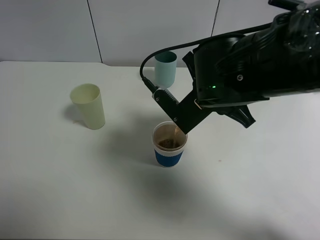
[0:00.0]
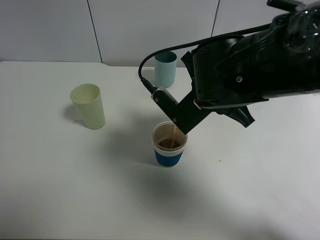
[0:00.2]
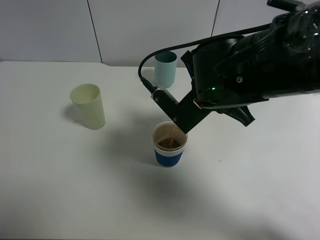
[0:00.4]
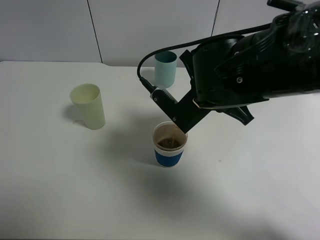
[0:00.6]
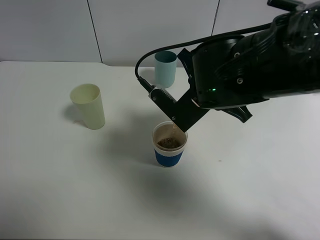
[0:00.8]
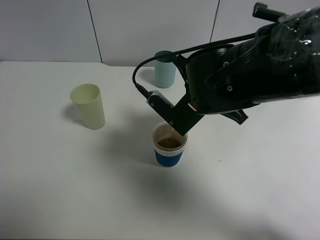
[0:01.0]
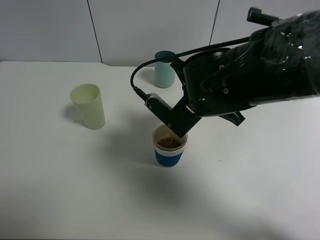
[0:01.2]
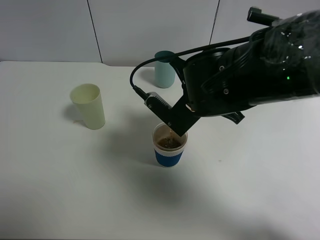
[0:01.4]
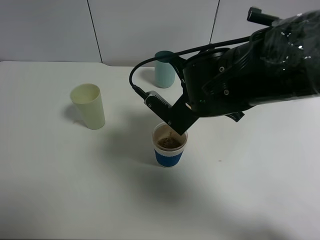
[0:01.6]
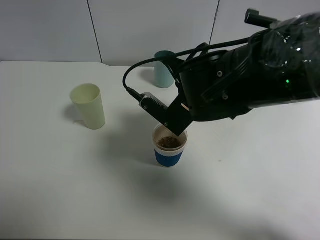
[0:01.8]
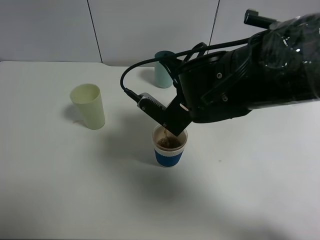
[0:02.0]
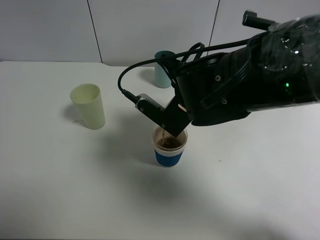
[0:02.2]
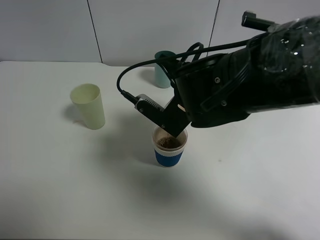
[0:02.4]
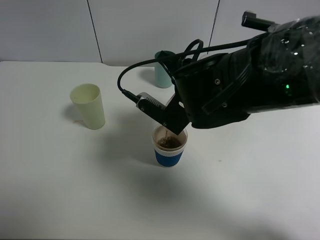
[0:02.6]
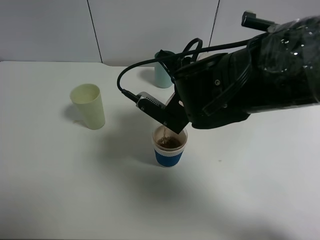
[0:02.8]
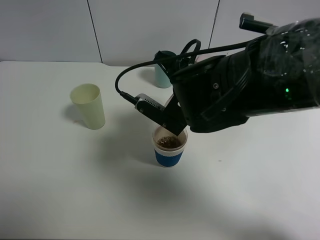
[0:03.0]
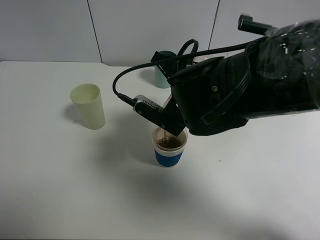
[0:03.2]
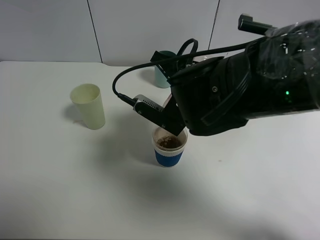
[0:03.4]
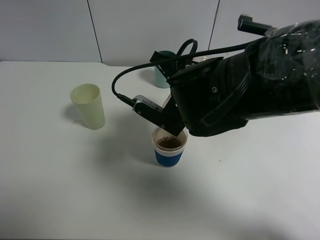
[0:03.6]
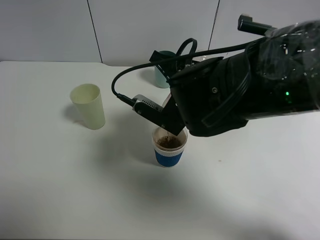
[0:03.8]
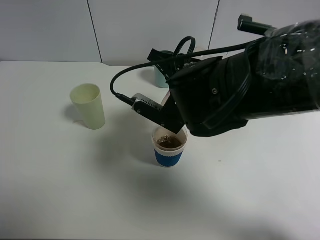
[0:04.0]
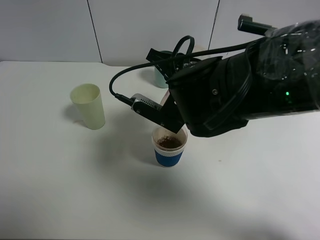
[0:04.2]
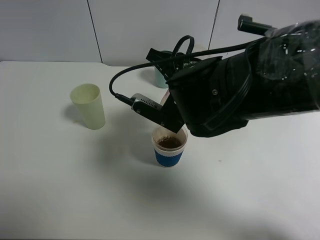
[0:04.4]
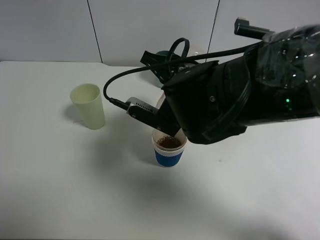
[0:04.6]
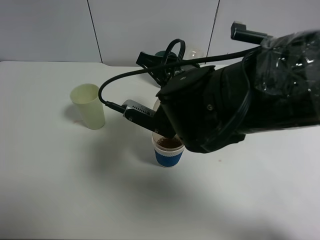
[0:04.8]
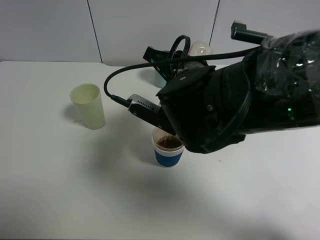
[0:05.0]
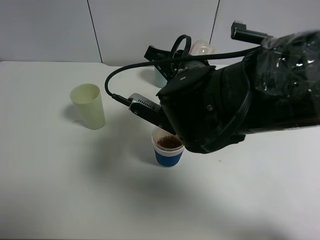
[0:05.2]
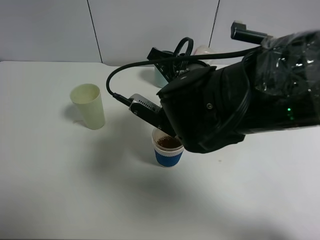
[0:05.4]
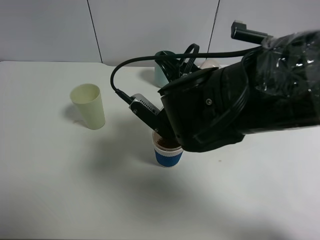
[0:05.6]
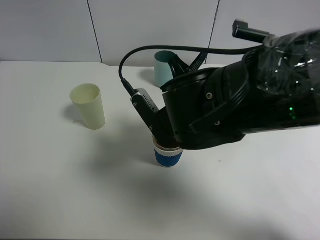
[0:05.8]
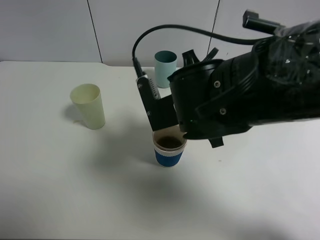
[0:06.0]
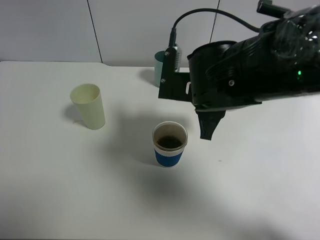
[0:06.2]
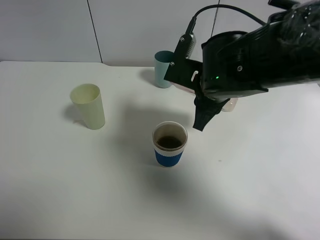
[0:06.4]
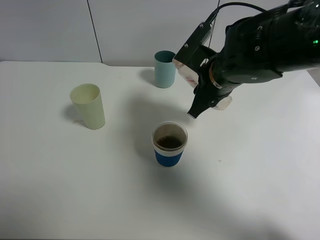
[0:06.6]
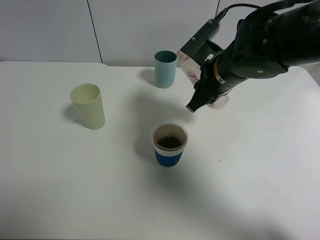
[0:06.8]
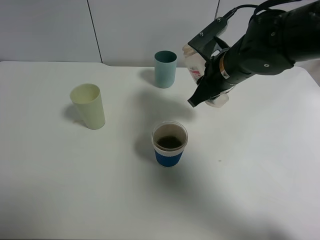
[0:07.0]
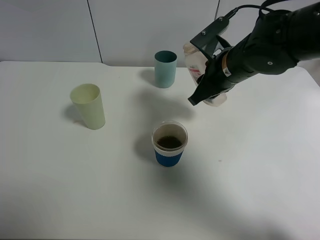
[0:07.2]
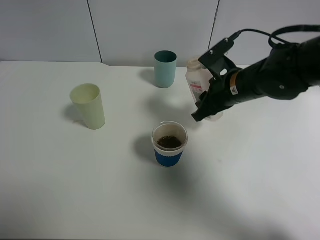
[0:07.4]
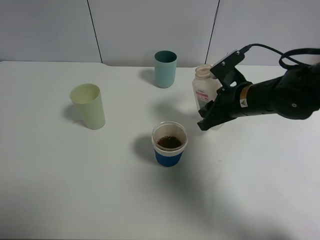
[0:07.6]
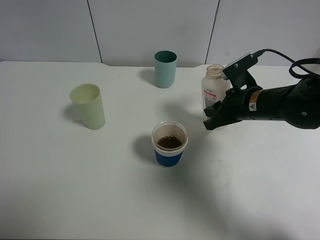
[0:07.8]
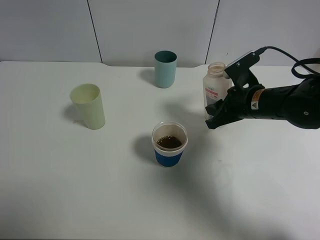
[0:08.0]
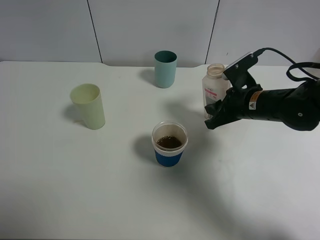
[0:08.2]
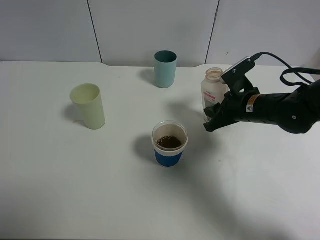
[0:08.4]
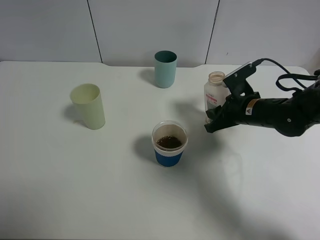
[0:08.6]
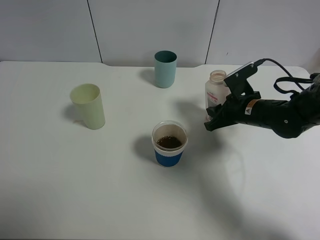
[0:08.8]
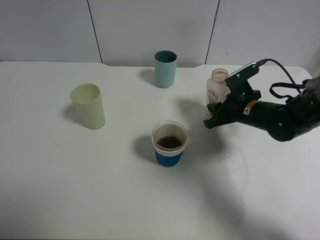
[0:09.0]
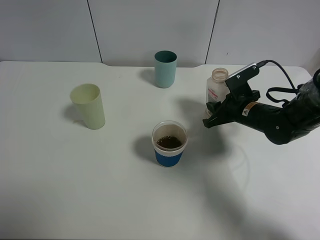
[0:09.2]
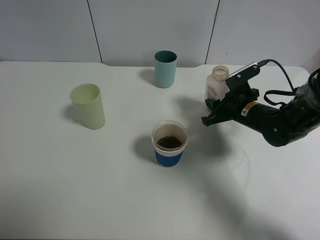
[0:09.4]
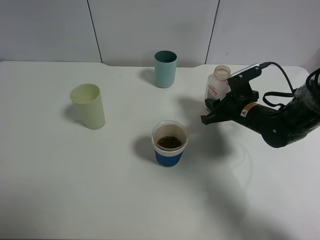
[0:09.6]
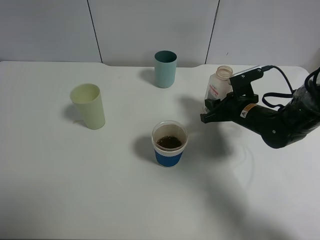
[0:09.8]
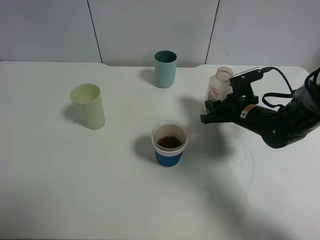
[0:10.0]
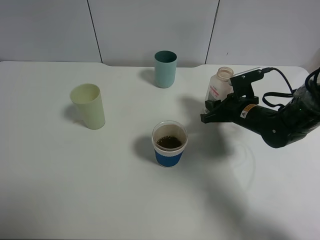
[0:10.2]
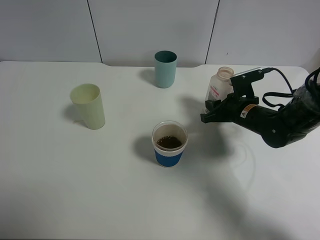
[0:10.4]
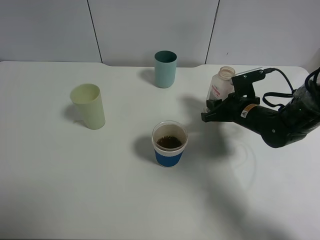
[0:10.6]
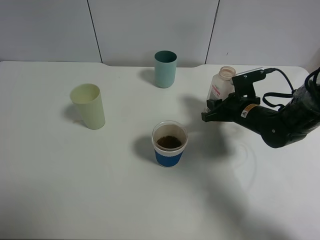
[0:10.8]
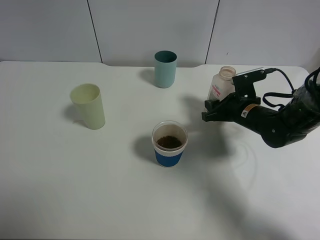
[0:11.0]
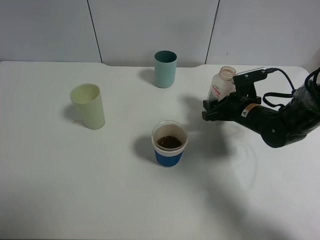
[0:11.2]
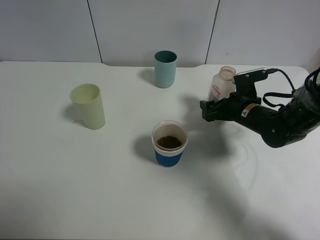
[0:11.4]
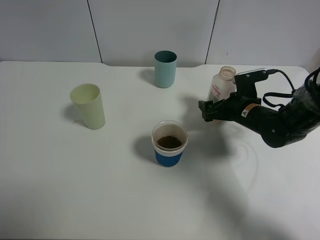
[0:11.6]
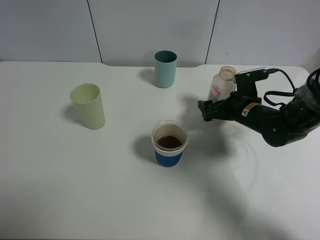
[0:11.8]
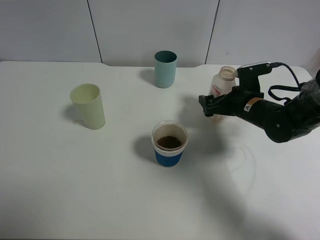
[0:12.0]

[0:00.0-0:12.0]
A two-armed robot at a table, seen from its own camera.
Task of the whole recording: use a clamp to hold the bottle of the drink, pour the beverage into a random cup, then clamp the cup containing the drink and pour the drink into another random cup.
Step, 0:00.0 to 0:06.0: Pour the drink into the paper cup with right gripper.
0:00.0 to 0:03.0: The grippers move only a little.
0:03.0 to 0:04.4: The grippers stay close to where they were, moving slightly.
0:06.0 to 0:07.6: The right gripper travels to the right, forward and downward by roughly 15 cm.
0:07.6 to 0:09.0: The right gripper travels downward by some 5 cm.
0:09.0 to 0:10.4: The grippers make only small movements.
0:10.4 to 0:12.0: The right gripper opens its fingers.

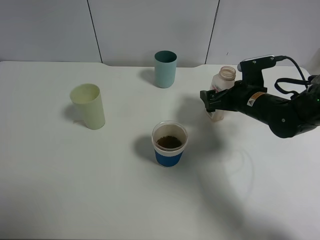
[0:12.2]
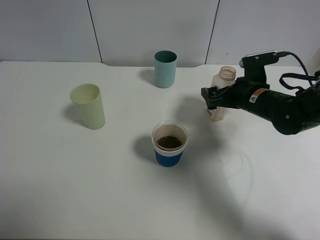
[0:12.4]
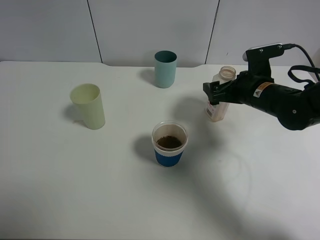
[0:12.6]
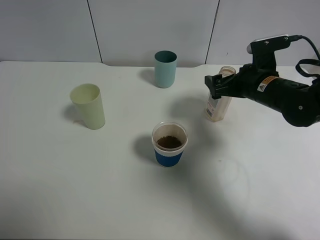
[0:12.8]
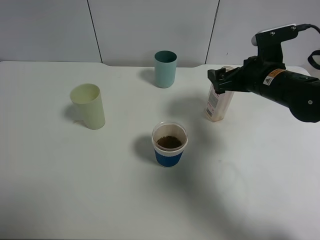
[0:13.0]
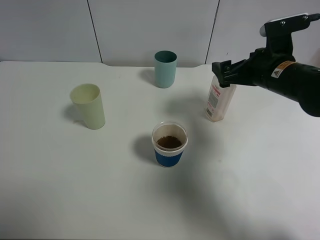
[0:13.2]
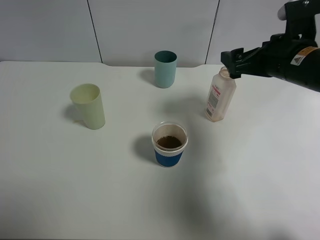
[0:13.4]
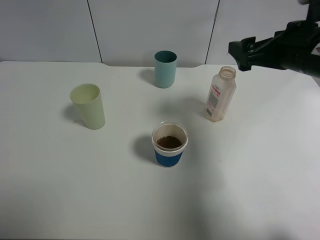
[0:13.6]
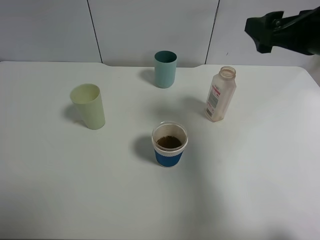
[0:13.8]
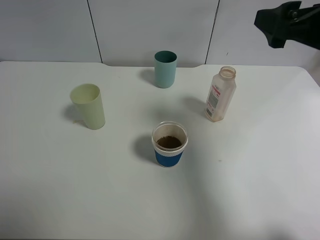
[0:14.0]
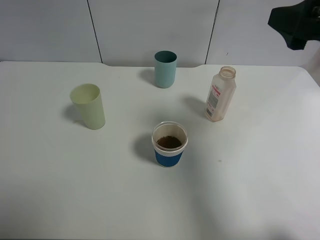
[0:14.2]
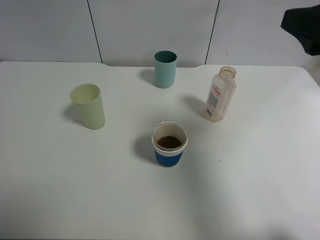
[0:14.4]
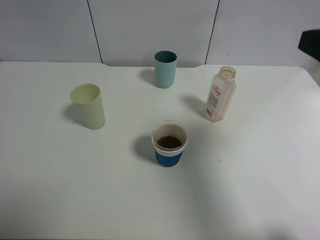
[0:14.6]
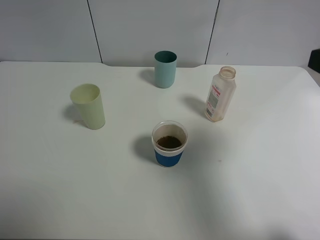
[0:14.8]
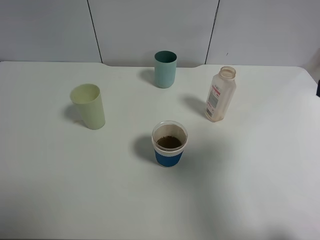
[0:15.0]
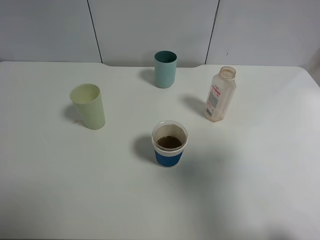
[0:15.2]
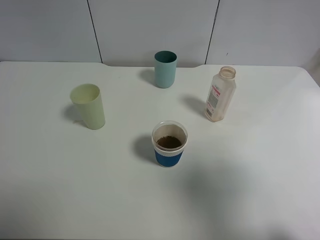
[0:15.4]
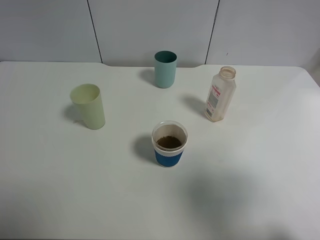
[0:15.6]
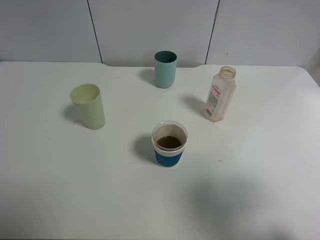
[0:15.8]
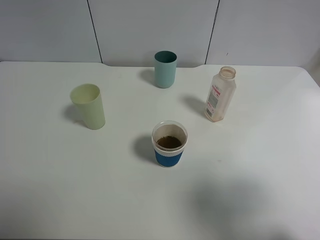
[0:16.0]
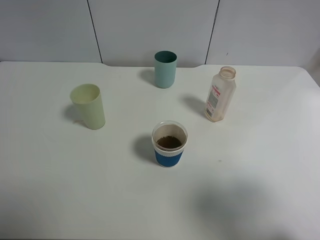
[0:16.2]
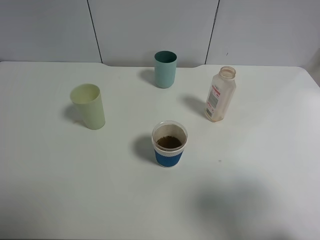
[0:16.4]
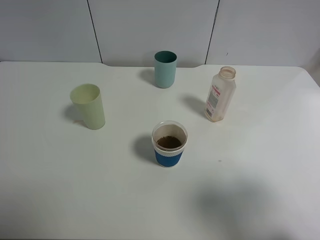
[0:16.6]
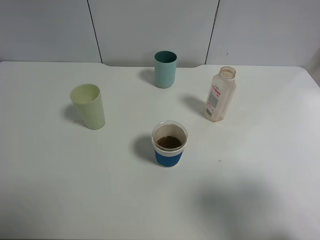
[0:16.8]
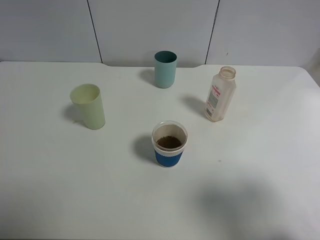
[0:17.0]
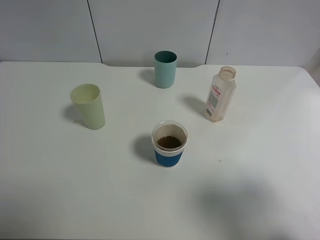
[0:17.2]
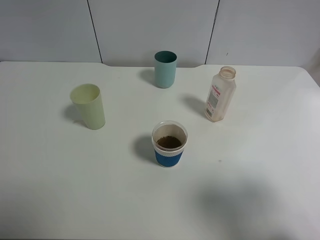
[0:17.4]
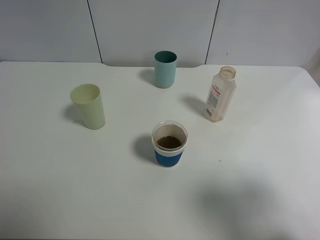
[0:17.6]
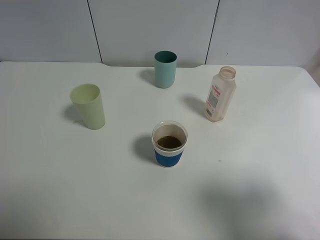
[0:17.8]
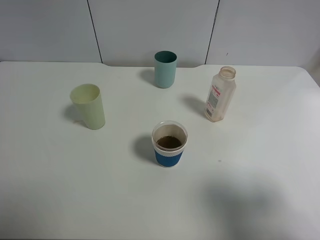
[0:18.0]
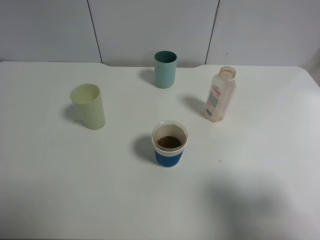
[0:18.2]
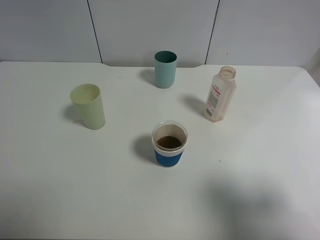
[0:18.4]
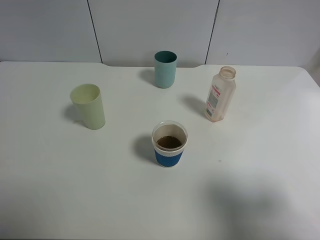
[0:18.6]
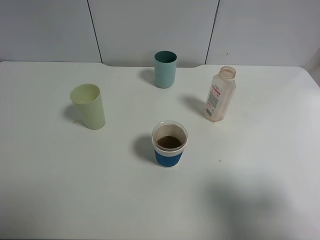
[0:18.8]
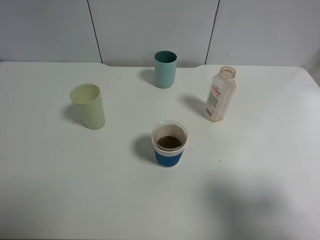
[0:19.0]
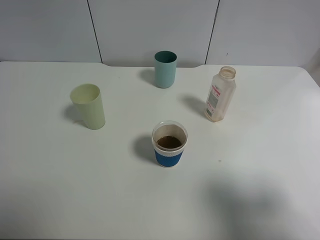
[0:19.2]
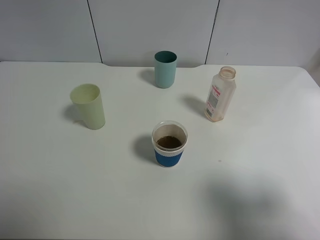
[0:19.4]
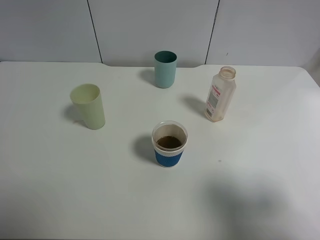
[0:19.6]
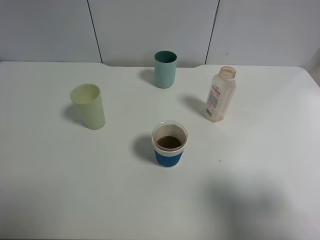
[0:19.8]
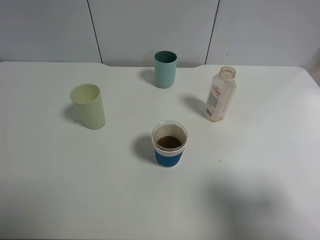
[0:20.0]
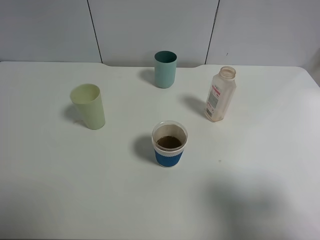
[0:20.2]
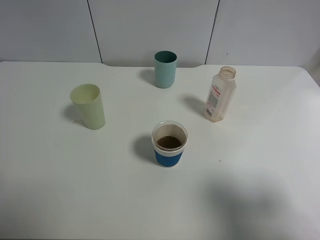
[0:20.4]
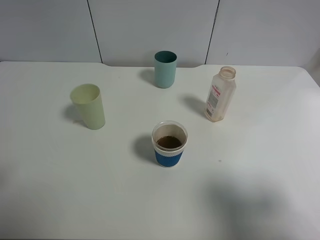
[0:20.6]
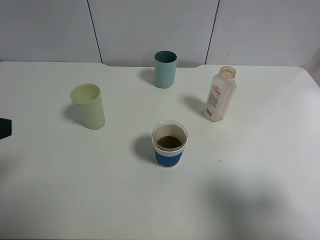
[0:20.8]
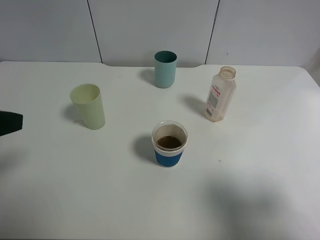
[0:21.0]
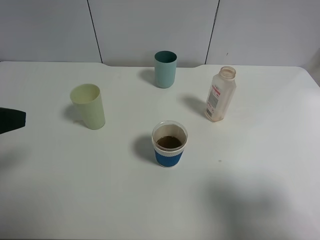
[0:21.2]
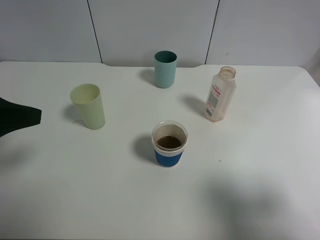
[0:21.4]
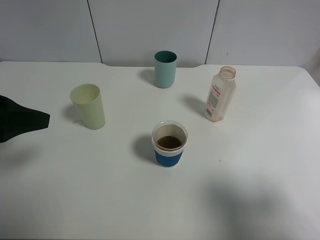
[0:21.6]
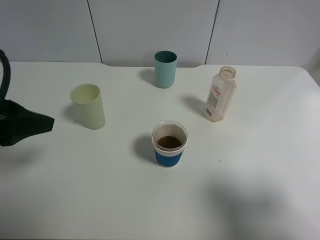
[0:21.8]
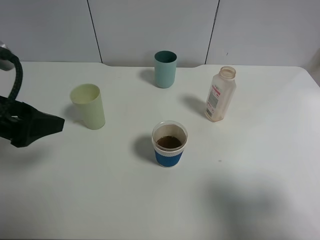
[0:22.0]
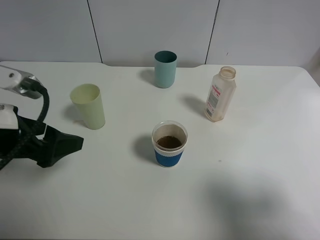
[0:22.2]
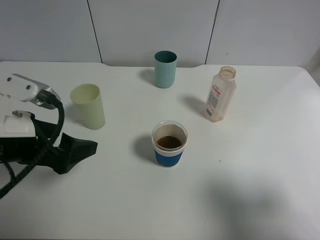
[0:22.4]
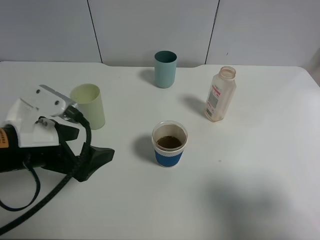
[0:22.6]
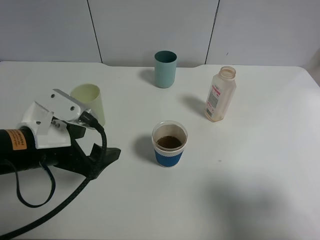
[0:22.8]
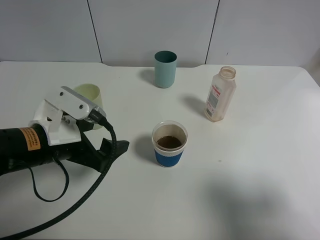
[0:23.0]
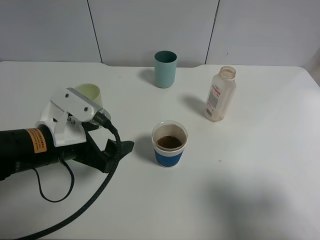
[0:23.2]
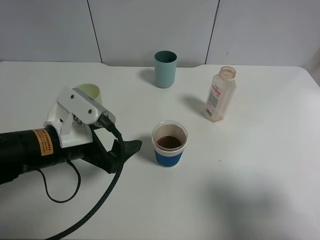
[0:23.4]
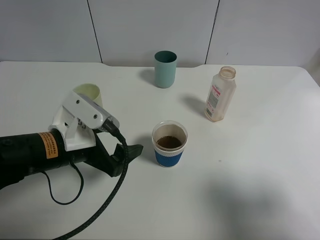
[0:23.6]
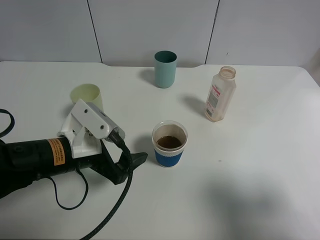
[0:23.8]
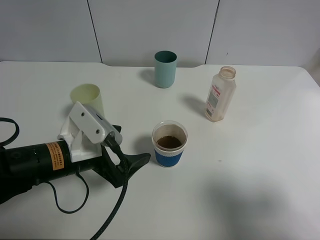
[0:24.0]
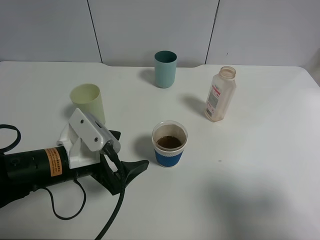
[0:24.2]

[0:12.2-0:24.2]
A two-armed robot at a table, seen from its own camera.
Task of the whole recording: use a clamp to hold the bottle of the drink, pour the beverage into a random cup, then clamp the cup containing the drink and pour the drink into another random cup.
0:12.2 to 0:13.8: The right gripper goes approximately 20 cm upward and backward.
0:13.8 to 0:15.2: The right gripper is displaced backward by roughly 15 cm.
0:15.2 to 0:16.6: The right gripper moves backward, approximately 5 cm.
0:18.2 to 0:19.8: Both grippers stay put.
0:19.8 to 0:21.2: The left gripper goes roughly 10 cm forward.
0:21.2 to 0:22.6: The left gripper heads downward and to the right, covering some 15 cm.
0:22.6 to 0:24.2: The left gripper is displaced downward by roughly 5 cm.
